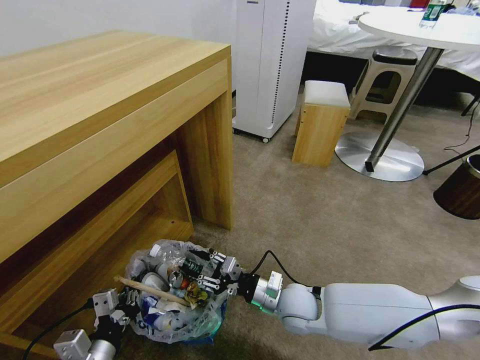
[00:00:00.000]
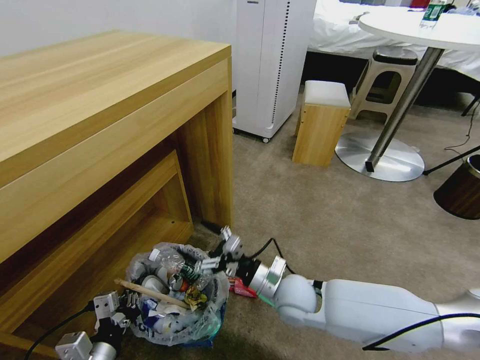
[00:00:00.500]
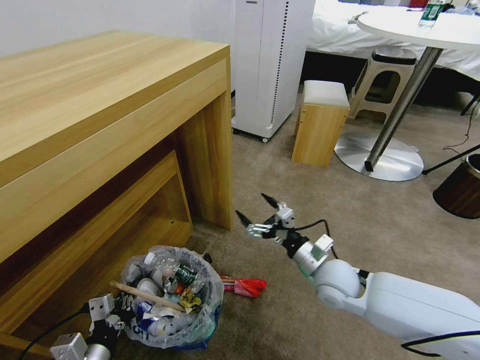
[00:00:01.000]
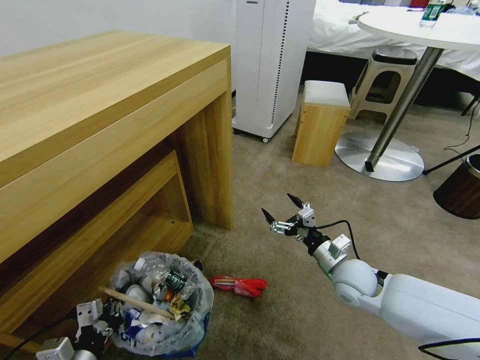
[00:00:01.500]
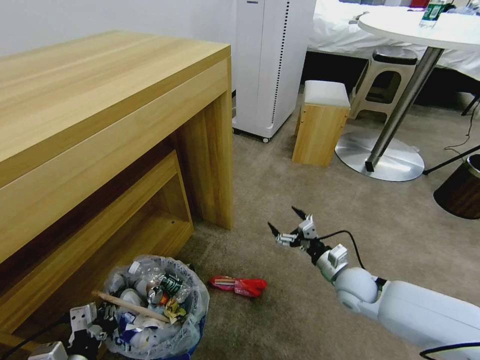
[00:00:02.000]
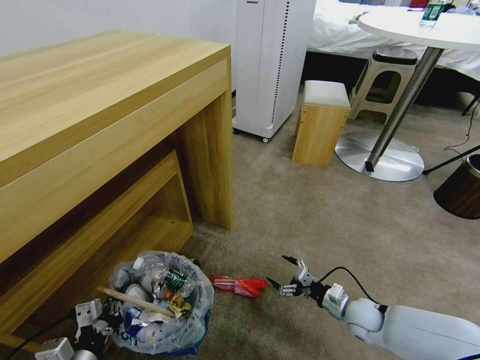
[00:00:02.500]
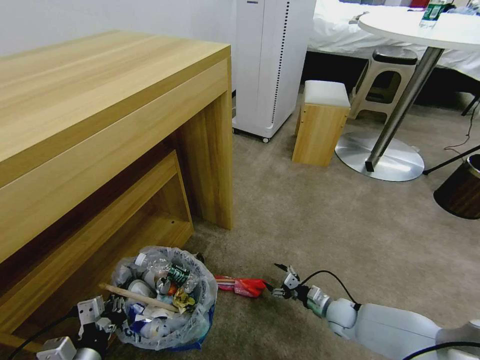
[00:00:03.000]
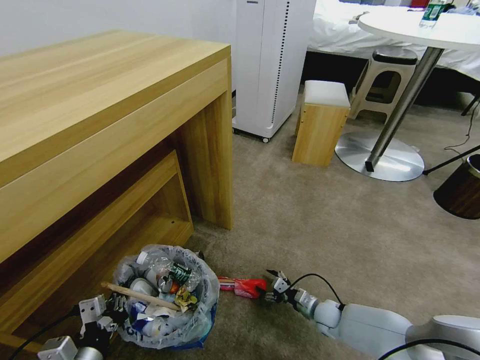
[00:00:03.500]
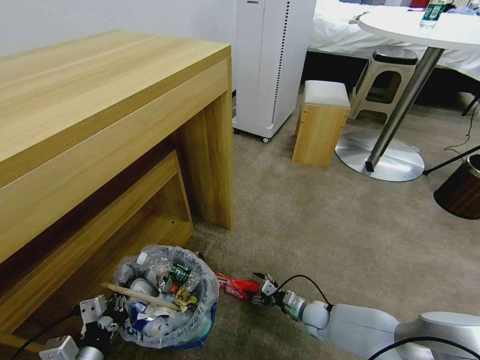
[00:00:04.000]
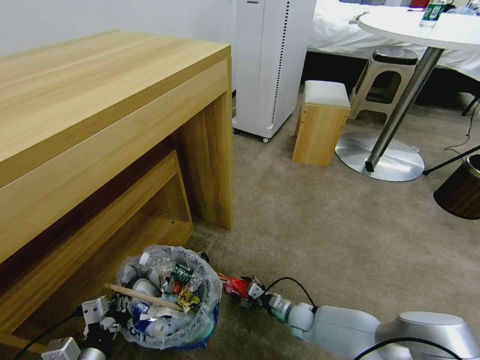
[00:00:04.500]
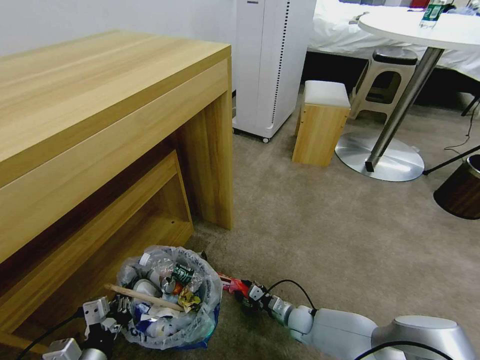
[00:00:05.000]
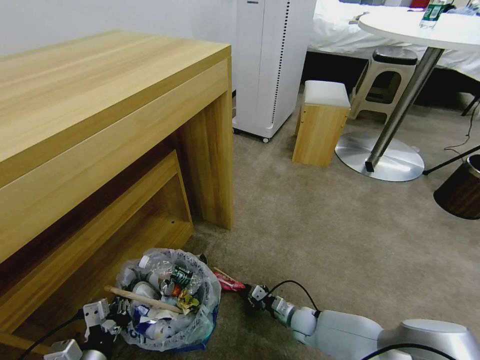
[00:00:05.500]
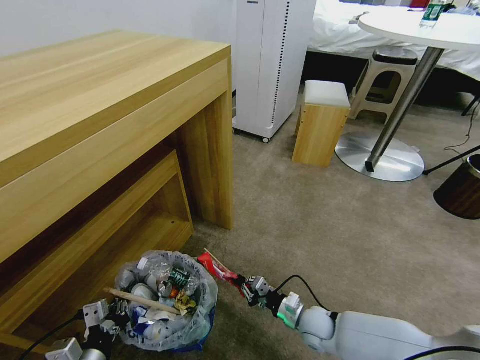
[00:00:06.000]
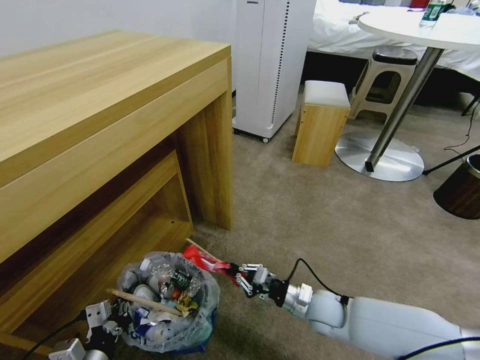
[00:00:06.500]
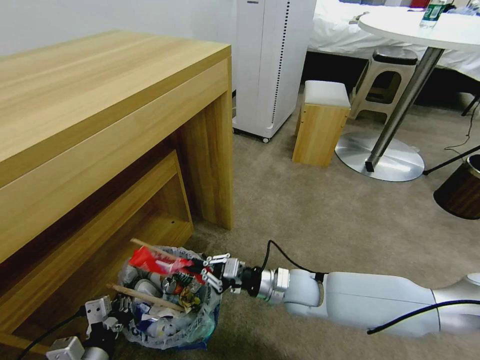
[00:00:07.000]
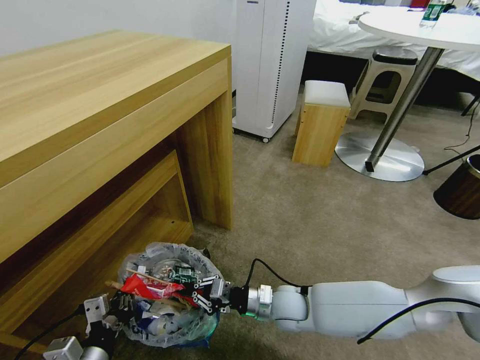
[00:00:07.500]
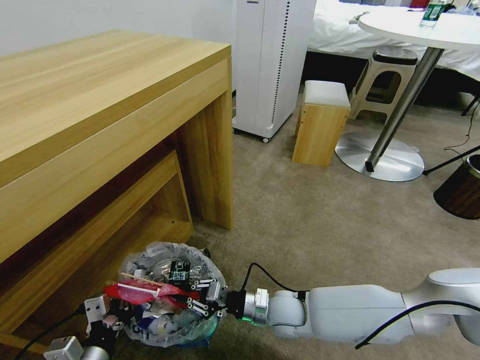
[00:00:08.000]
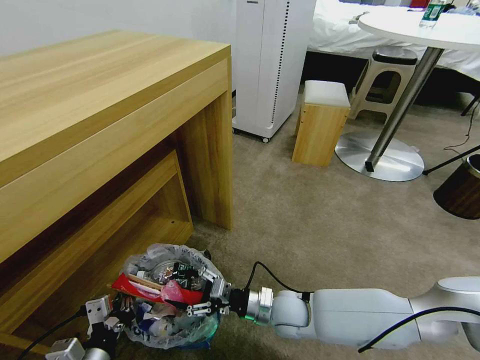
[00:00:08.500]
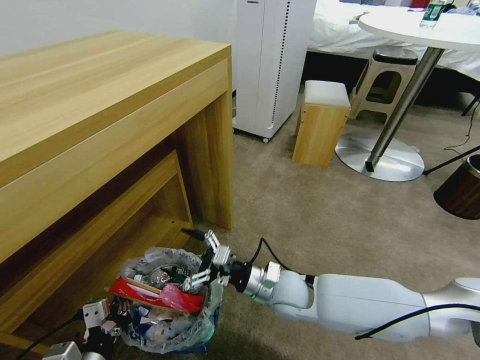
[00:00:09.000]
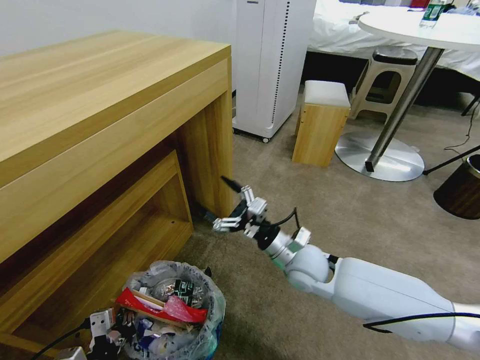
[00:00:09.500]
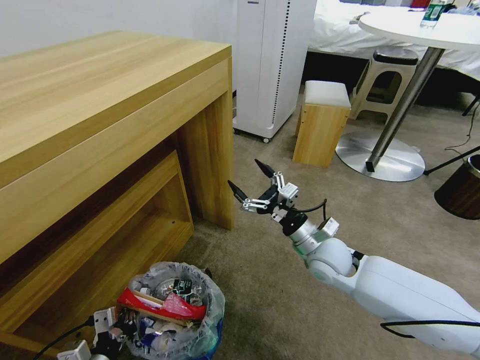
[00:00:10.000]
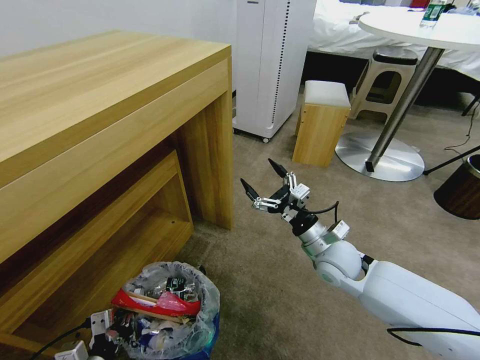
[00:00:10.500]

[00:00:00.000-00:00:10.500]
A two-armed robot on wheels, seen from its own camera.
Task of the whole recording: Pick up the trash bin and place the garbage on the floor into it.
00:00:00.000 to 00:00:02.000: The right gripper moves to the right, about 15 cm, and opens up.
00:00:02.000 to 00:00:04.000: The right gripper travels downward by roughly 20 cm.
00:00:04.000 to 00:00:06.500: The right gripper shifts approximately 15 cm upward, and closes up.
00:00:06.500 to 00:00:08.500: The right gripper travels to the left by approximately 10 cm, and opens.
00:00:08.500 to 00:00:10.500: The left gripper shifts by about 5 cm. Meanwhile the right gripper heads upward, to the right and forward, covering some 15 cm.

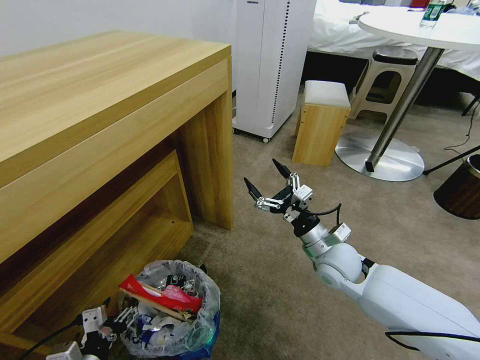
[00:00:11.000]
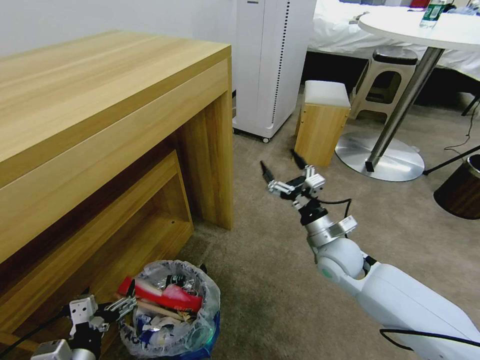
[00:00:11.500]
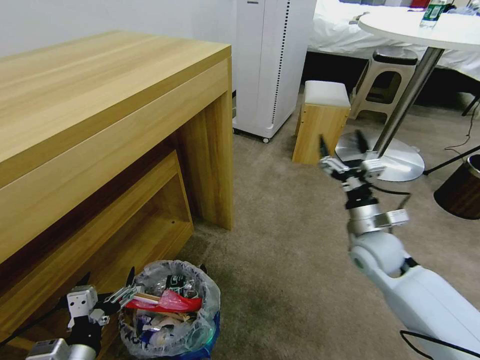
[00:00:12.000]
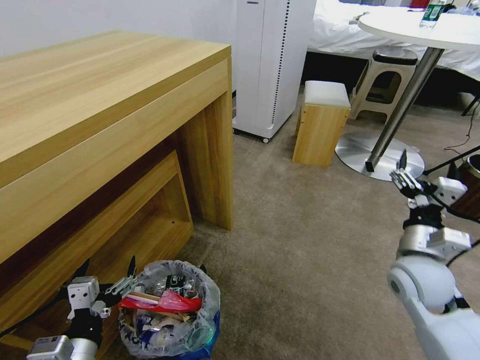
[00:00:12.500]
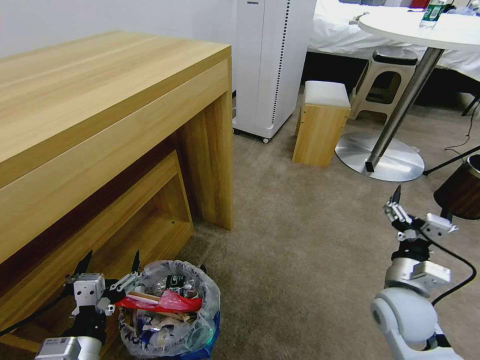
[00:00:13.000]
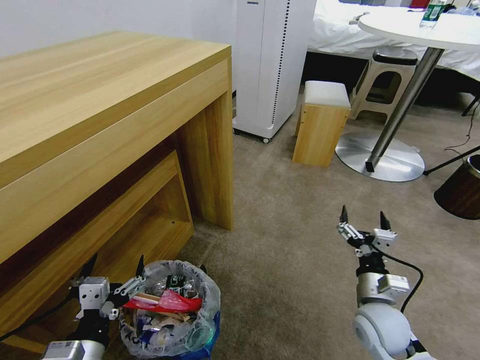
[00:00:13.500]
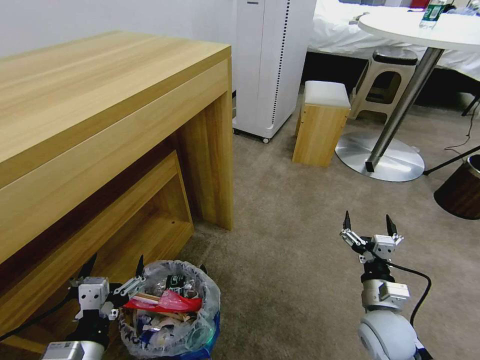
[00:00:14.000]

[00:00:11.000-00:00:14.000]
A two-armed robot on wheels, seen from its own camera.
Task of the whole recording: Pick up the trash bin and place the garbage on the floor into it.
00:00:11.000 to 00:00:12.500: The left gripper goes approximately 10 cm upward; the right gripper is displaced to the right, backward and upward by some 15 cm.
00:00:12.500 to 00:00:14.000: The right gripper moves downward and backward, approximately 15 cm.

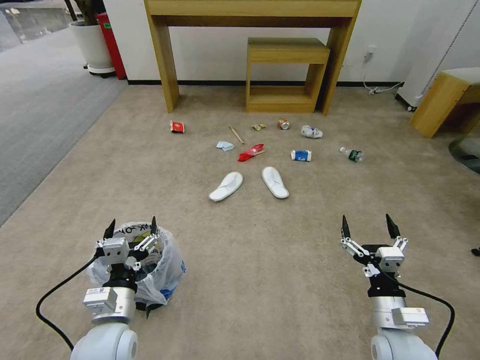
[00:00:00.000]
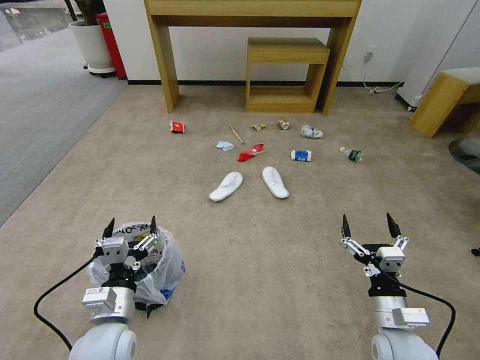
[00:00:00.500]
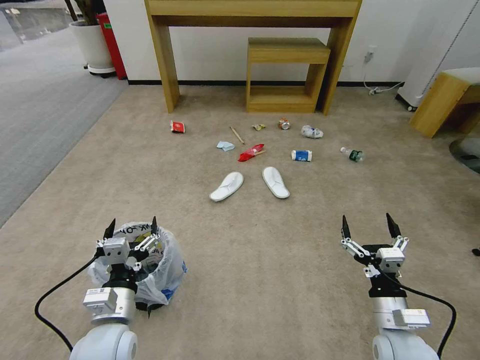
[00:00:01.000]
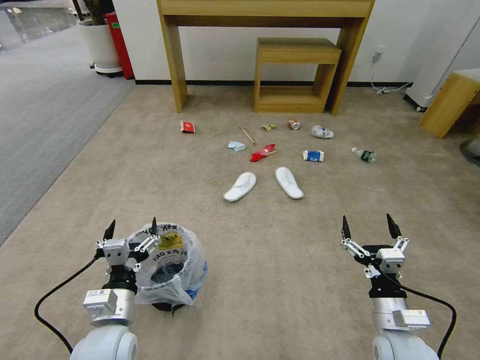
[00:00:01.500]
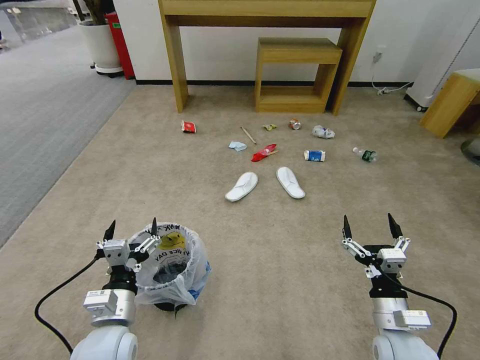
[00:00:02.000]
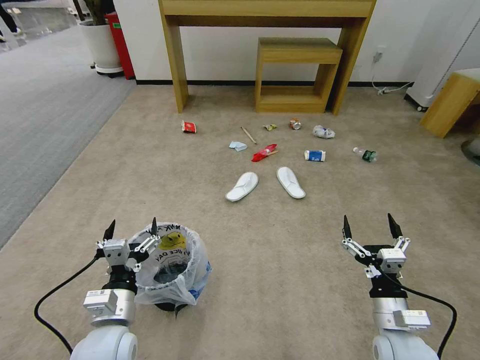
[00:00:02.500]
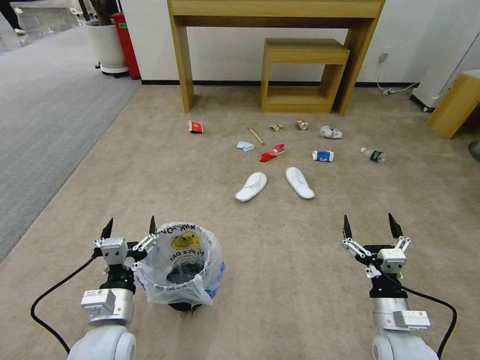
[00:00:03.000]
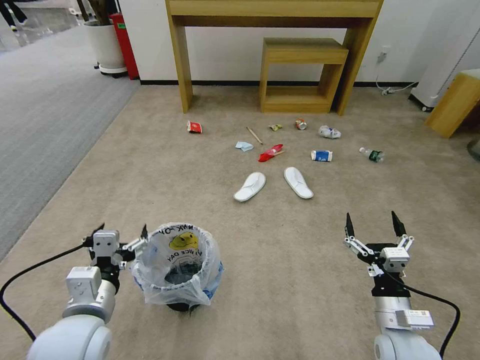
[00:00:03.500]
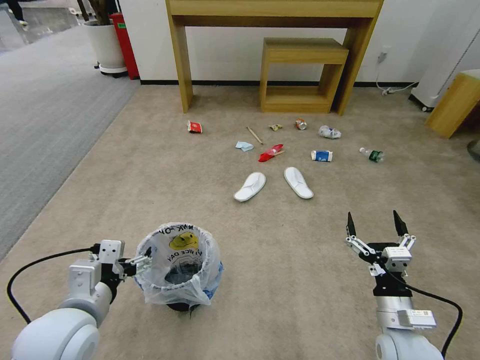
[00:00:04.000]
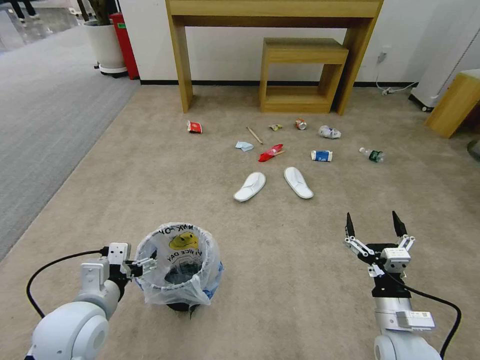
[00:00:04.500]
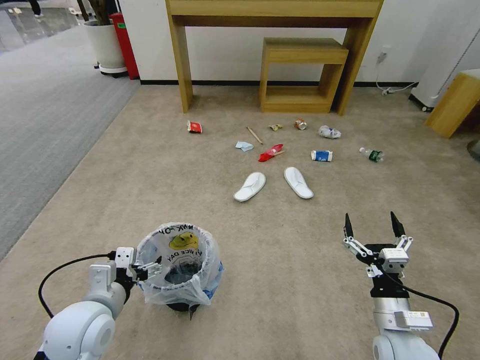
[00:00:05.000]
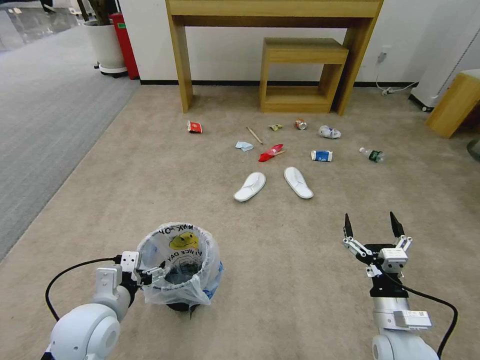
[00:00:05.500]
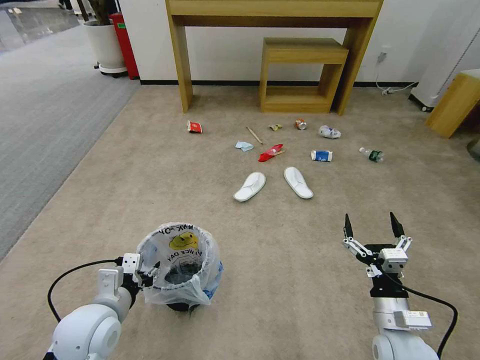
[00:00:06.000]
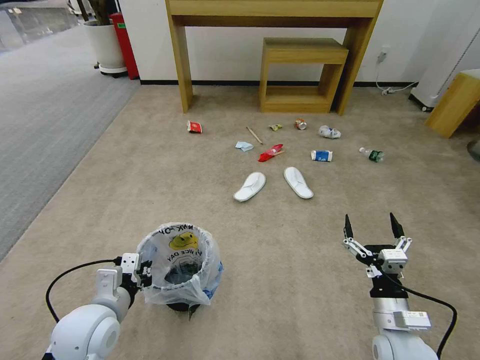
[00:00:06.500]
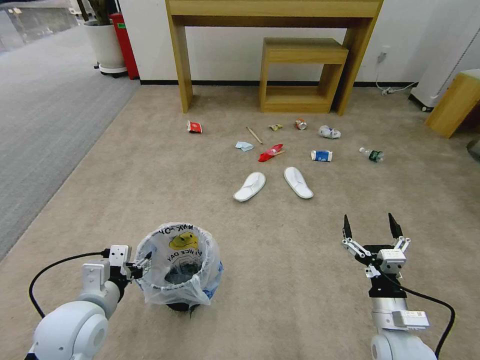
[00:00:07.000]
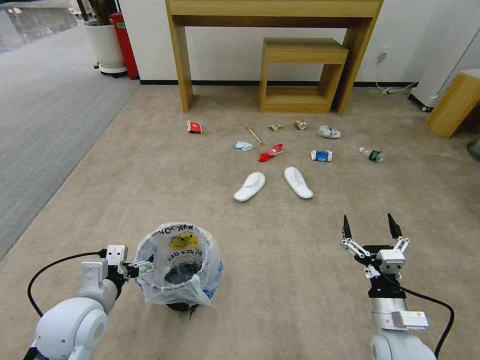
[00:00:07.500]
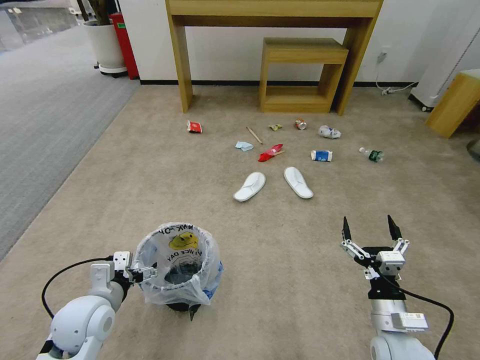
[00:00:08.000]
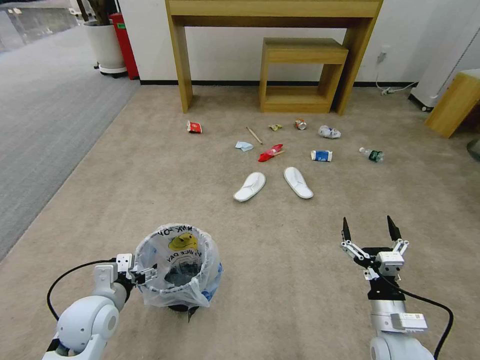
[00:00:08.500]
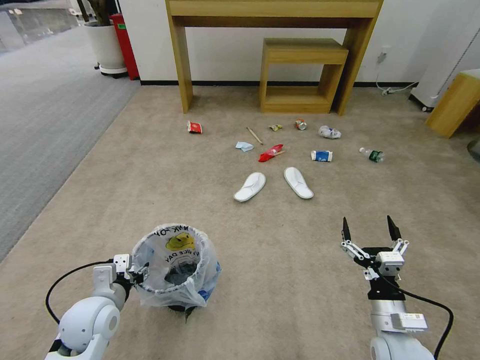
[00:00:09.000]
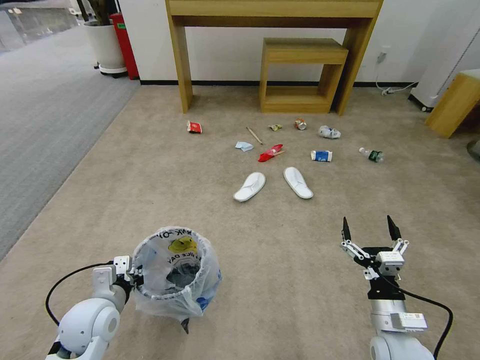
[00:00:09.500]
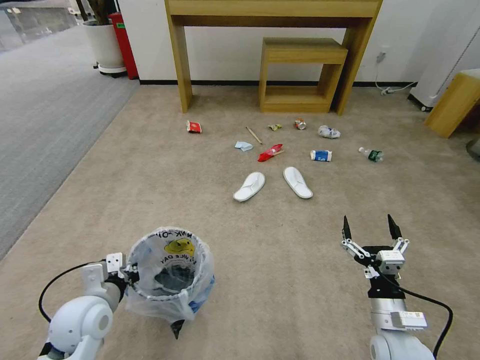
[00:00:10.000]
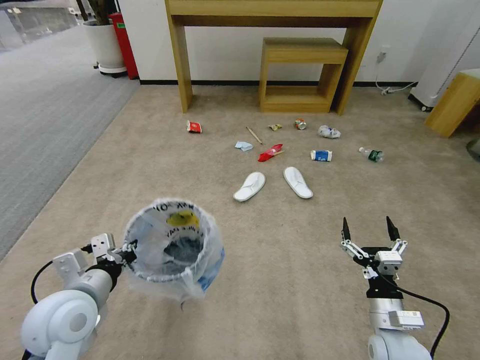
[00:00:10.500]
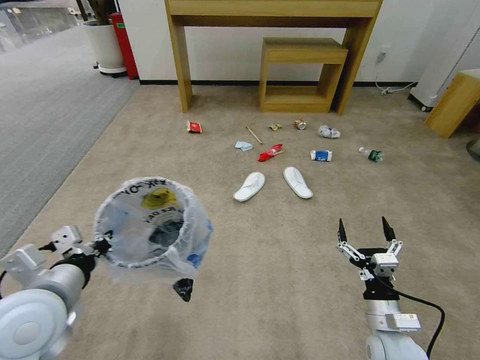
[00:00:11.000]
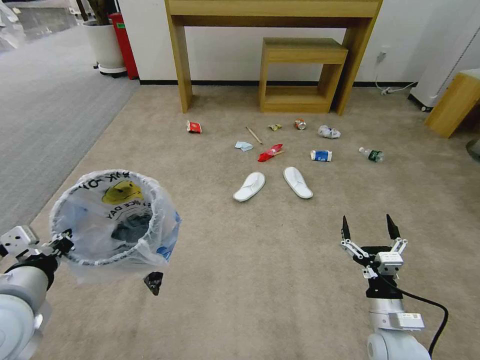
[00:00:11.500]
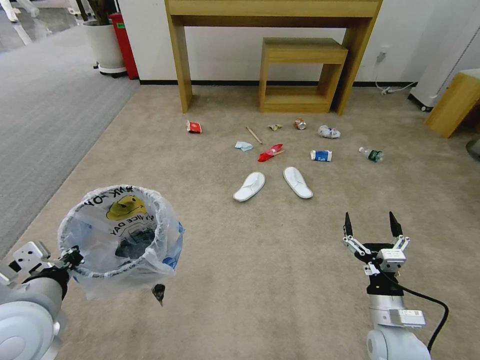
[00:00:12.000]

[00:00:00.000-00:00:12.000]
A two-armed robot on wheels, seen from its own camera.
Task of the whole recording: Pick up the trash bin and place the garbage on the floor into it.
00:00:02.000 to 00:00:04.000: The left gripper travels upward by some 10 cm.
00:00:04.000 to 00:00:06.000: The left gripper travels downward by some 5 cm, and closes up.
00:00:06.000 to 00:00:08.000: The left gripper opens.
00:00:08.000 to 00:00:10.000: The left gripper closes.
00:00:10.000 to 00:00:12.000: The left gripper travels upward and backward by approximately 15 cm.
